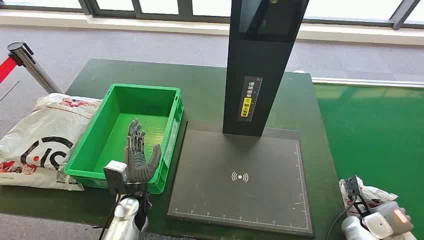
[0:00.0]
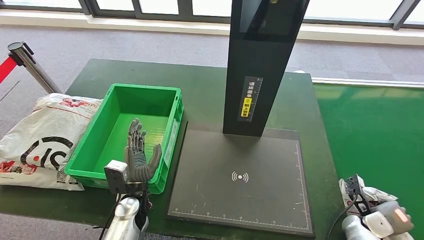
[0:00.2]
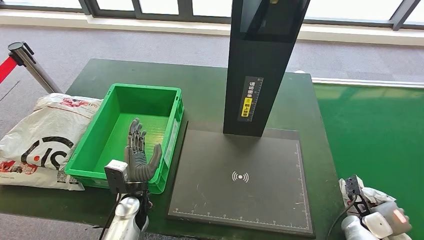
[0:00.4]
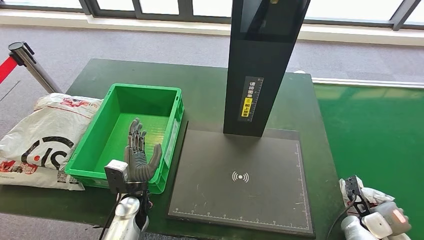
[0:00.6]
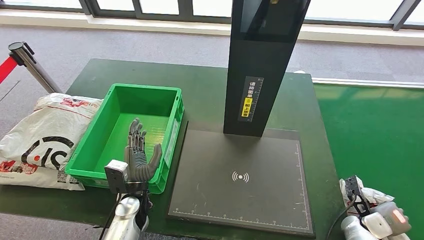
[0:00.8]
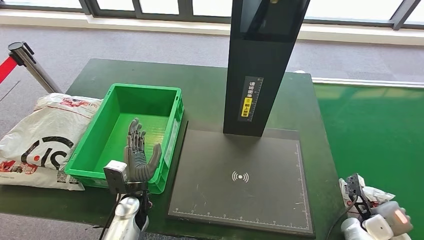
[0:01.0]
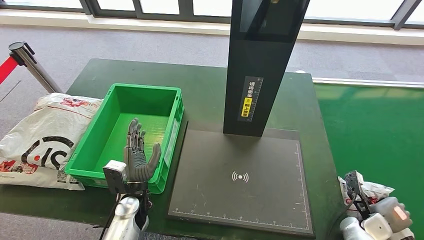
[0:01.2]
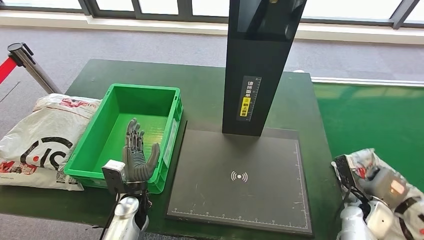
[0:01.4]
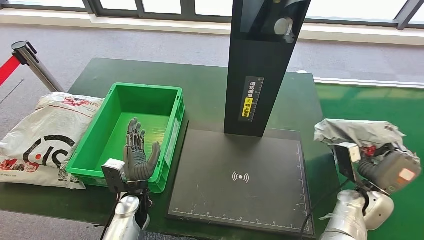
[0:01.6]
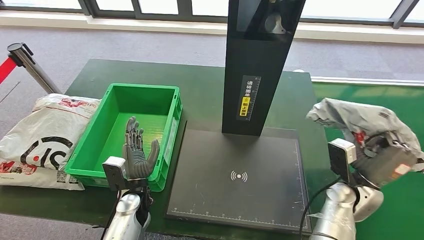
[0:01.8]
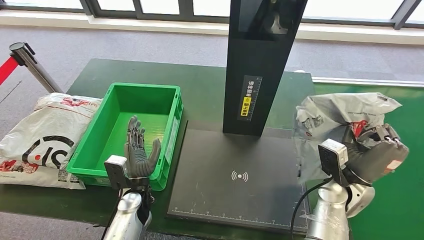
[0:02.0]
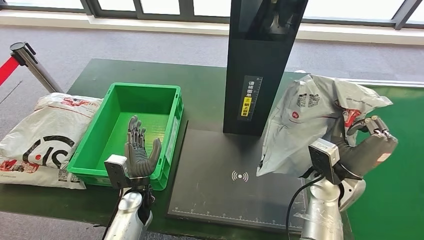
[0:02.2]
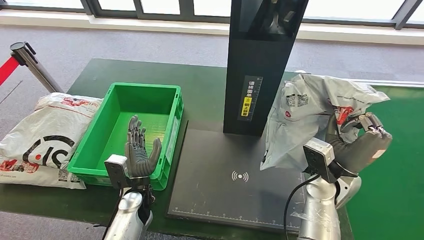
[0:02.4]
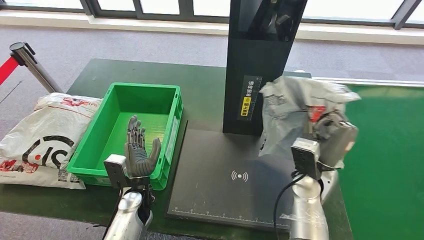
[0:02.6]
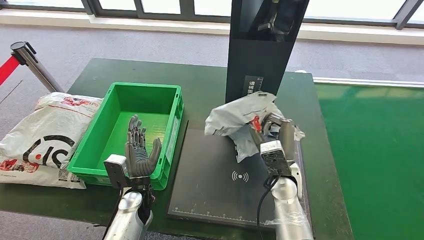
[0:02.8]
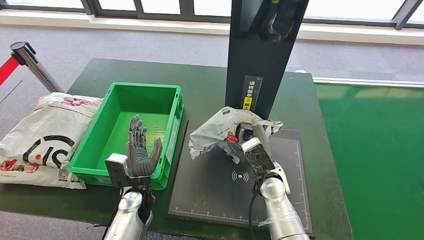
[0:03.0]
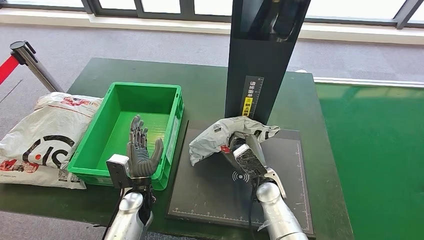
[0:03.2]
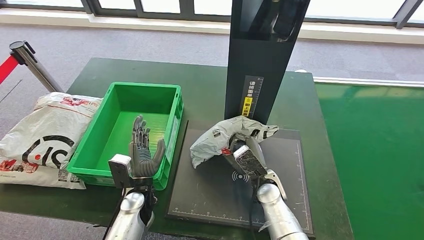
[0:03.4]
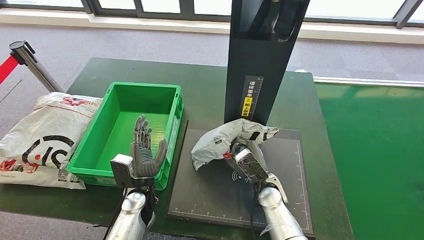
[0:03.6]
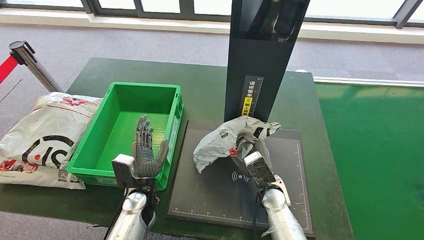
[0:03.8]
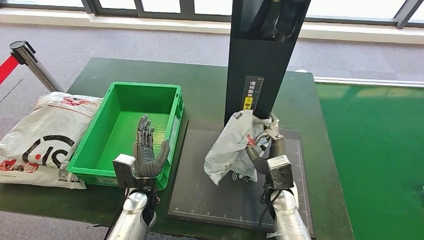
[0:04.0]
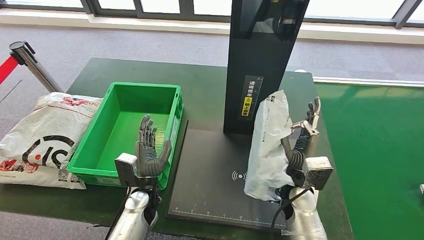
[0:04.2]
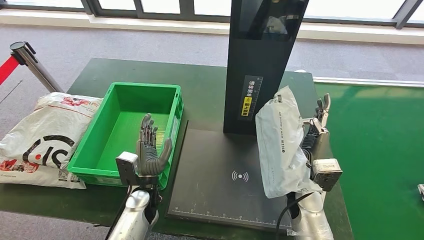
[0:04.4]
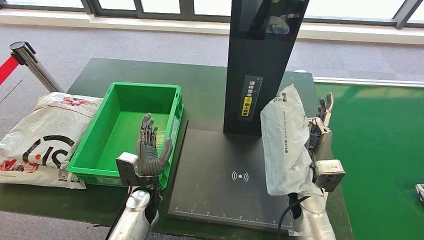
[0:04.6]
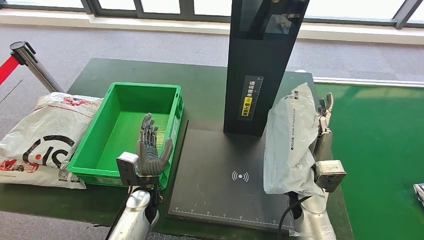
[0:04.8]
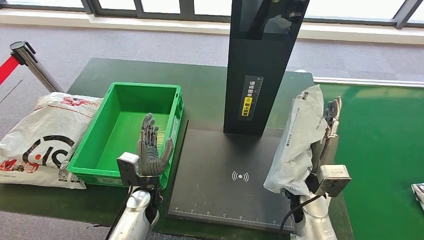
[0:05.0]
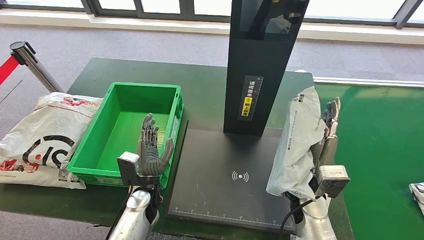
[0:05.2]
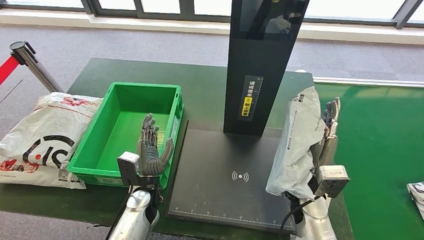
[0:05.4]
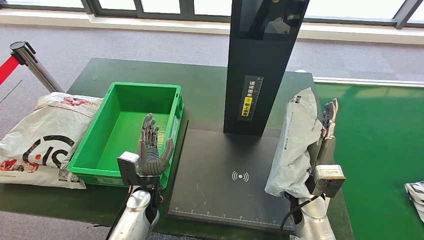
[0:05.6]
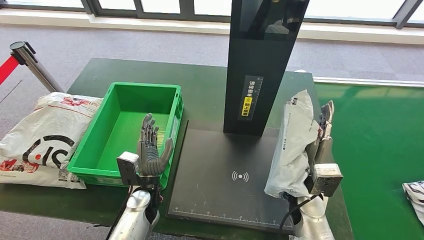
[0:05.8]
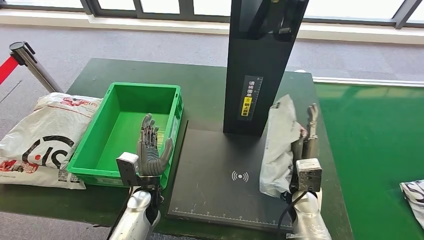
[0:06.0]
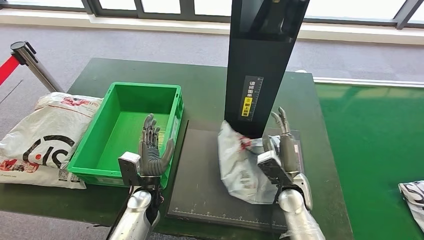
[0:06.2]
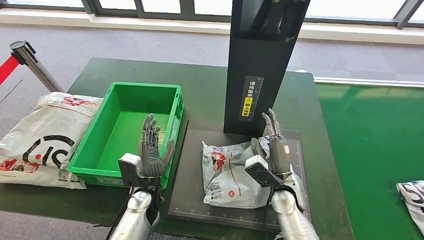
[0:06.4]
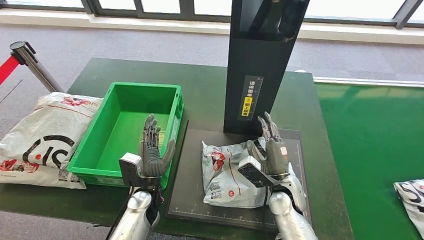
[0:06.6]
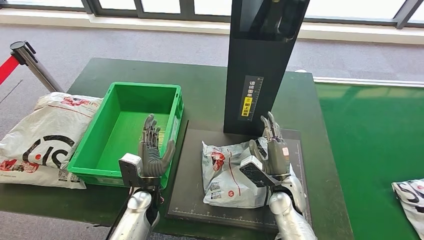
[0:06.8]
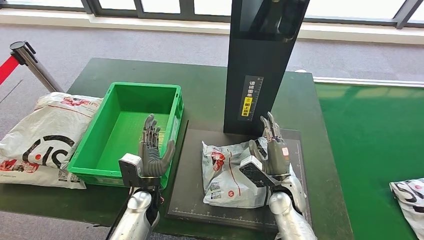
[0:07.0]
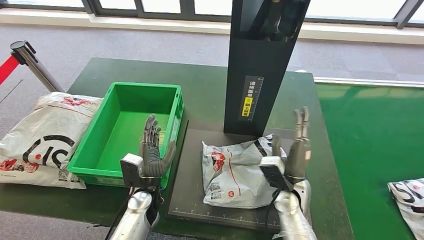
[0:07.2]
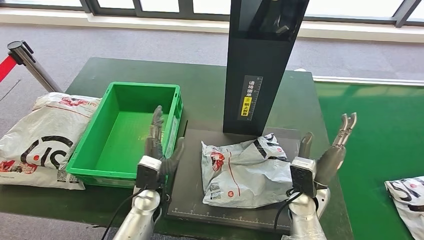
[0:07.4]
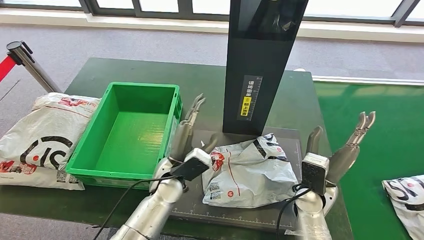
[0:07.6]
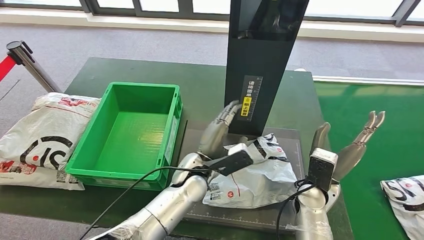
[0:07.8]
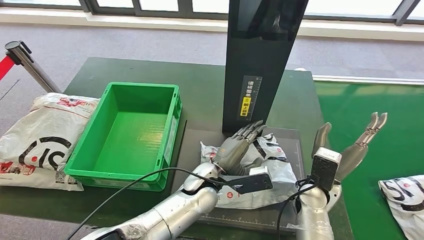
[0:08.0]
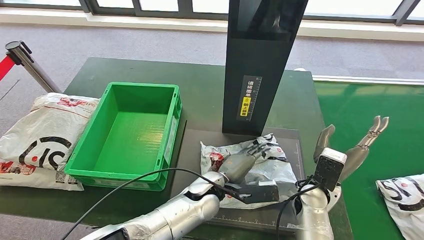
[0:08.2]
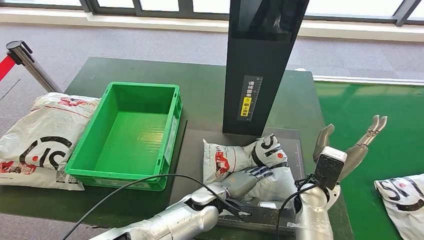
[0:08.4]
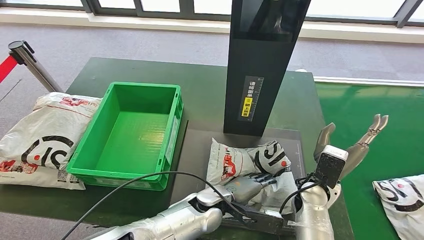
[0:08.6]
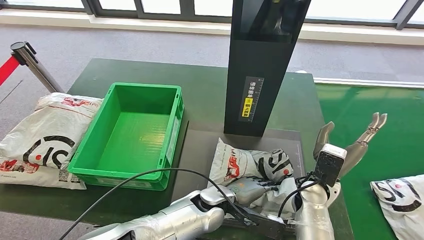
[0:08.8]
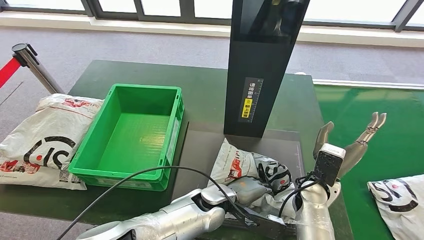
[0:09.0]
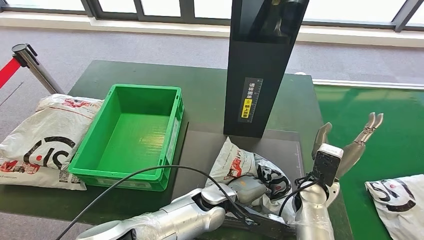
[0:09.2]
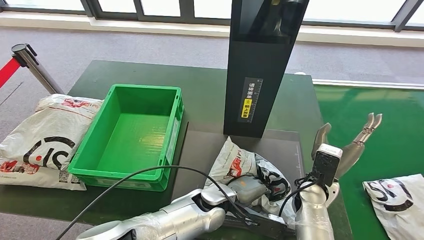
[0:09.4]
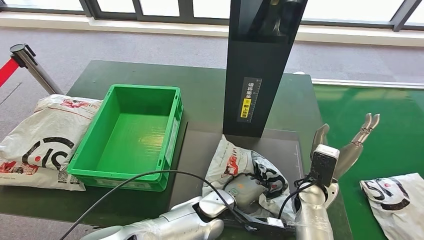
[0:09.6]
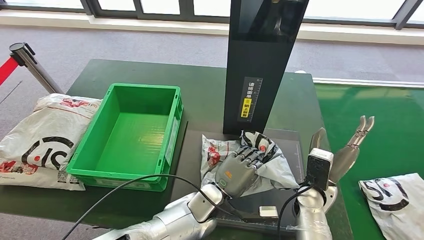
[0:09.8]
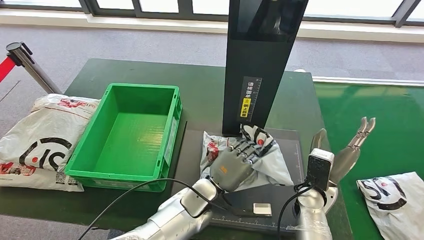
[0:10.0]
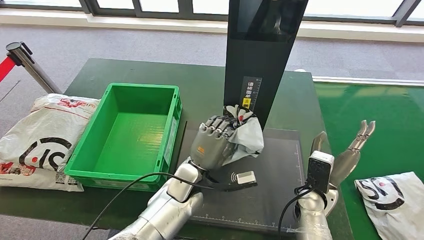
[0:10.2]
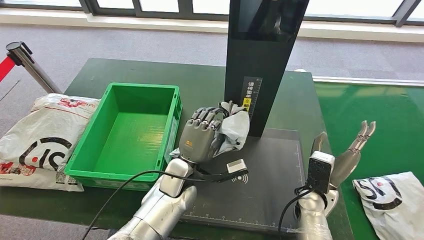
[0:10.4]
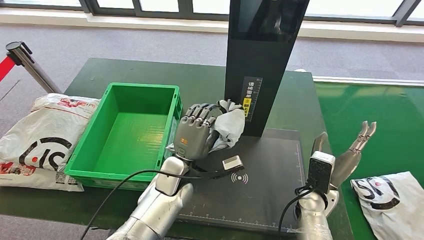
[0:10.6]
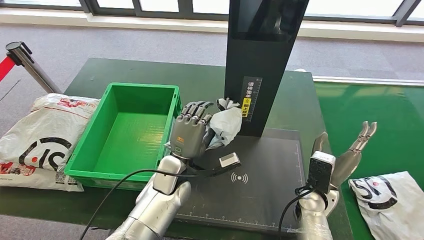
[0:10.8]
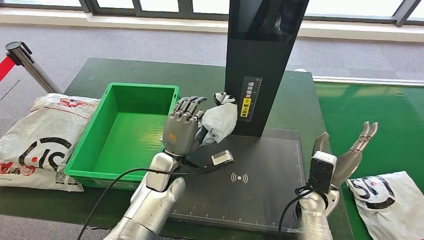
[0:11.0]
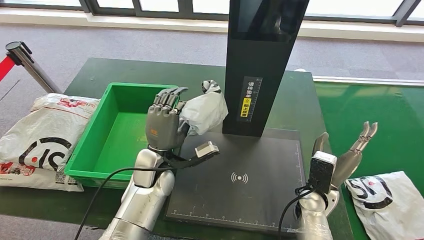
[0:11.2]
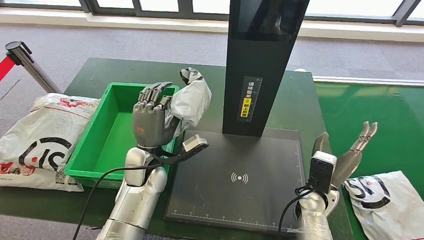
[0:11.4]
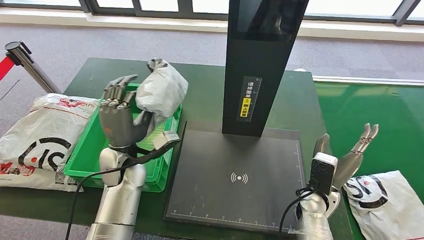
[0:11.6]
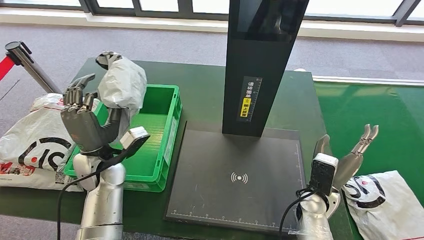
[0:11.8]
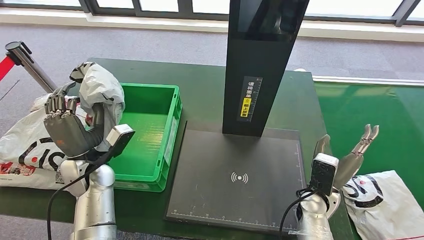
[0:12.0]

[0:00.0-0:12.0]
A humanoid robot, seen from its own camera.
Step, 0:00.0 to 0:01.6: Take the parcel off the conveyor belt.
Step, 0:02.2 to 0:06.6: Place the parcel onto the inbound machine.
Step, 0:07.8 to 0:09.8: Pick up the parcel from the inbound machine.
0:03.0 to 0:04.4: The right hand travels to the right by roughly 5 cm.
0:04.4 to 0:06.0: The hands move only a little.

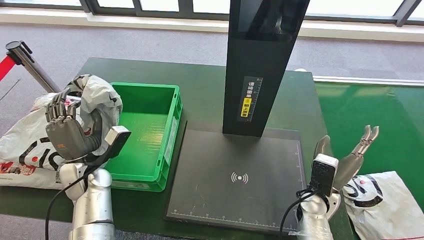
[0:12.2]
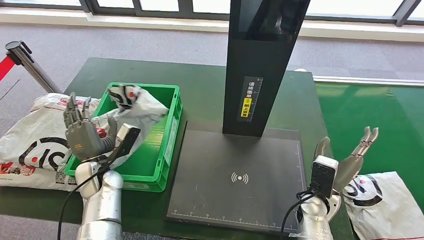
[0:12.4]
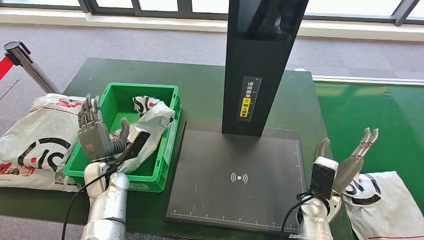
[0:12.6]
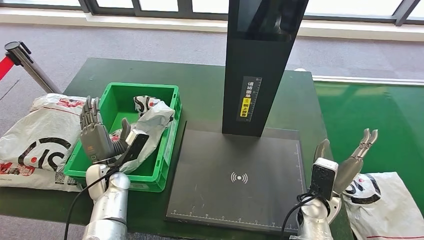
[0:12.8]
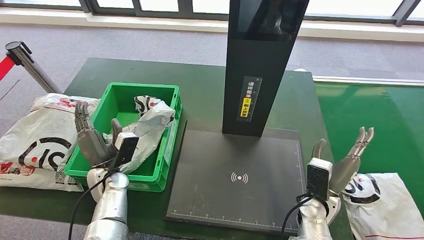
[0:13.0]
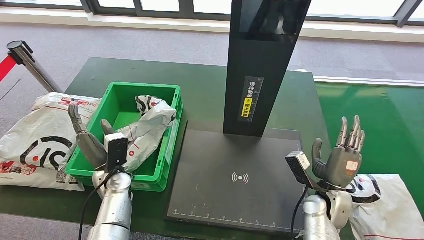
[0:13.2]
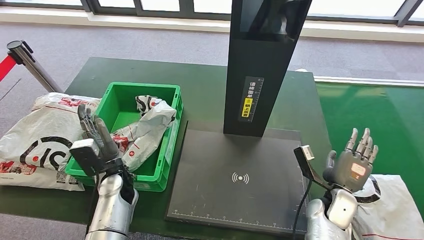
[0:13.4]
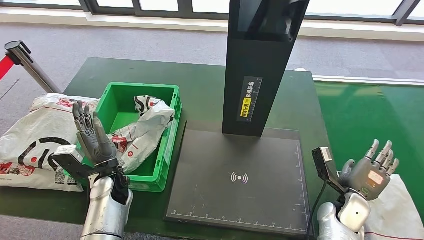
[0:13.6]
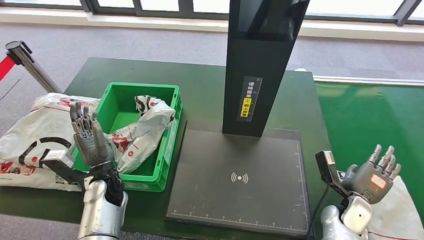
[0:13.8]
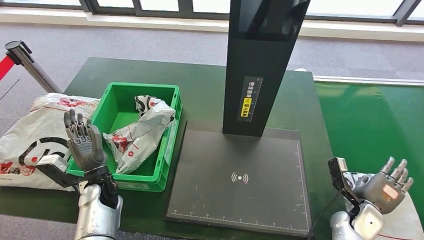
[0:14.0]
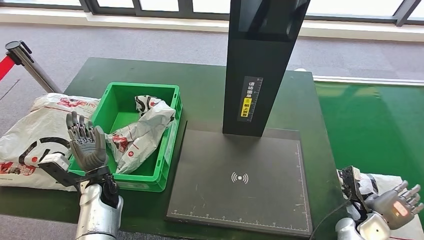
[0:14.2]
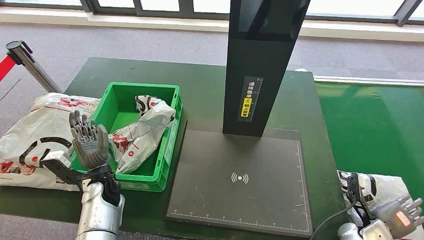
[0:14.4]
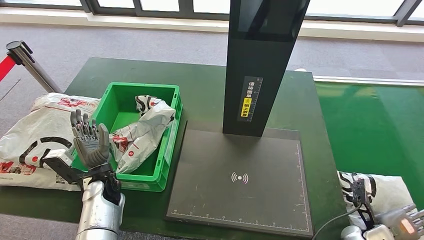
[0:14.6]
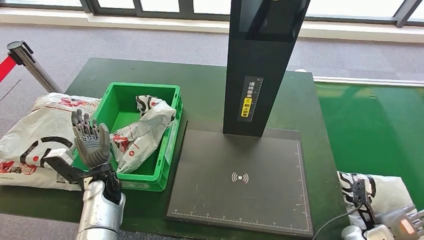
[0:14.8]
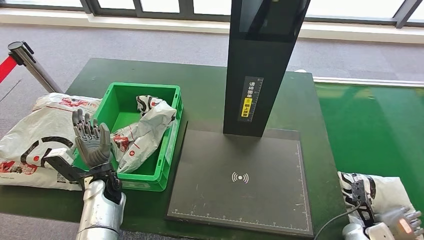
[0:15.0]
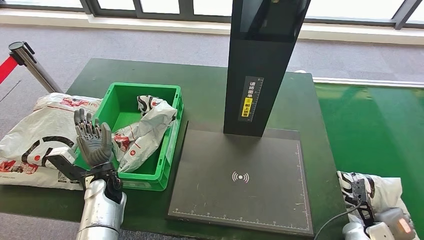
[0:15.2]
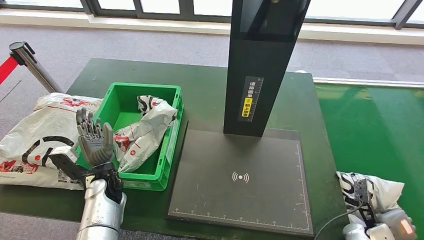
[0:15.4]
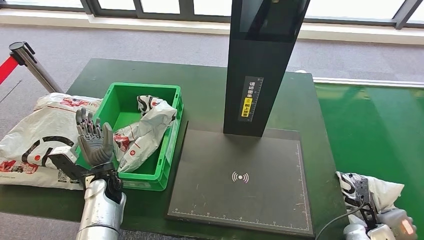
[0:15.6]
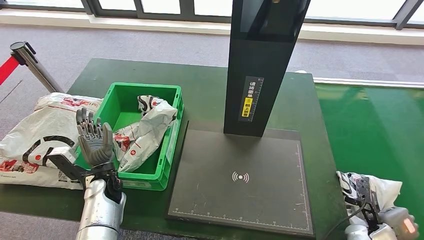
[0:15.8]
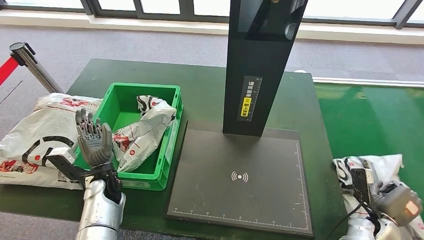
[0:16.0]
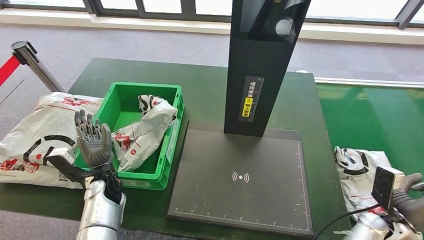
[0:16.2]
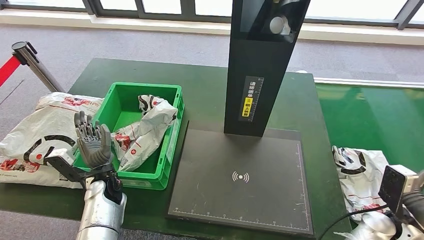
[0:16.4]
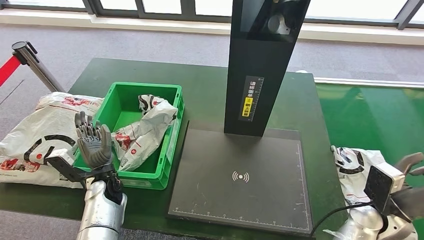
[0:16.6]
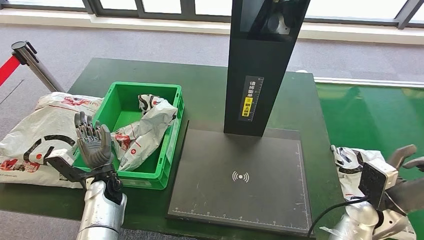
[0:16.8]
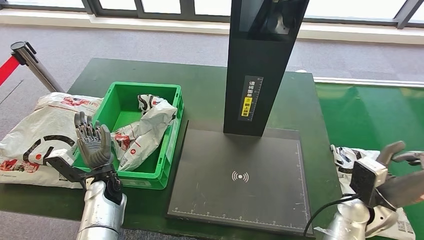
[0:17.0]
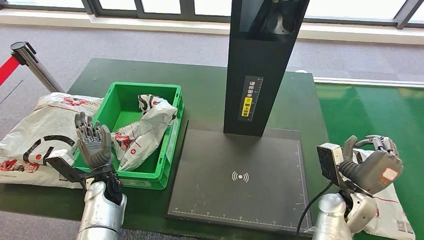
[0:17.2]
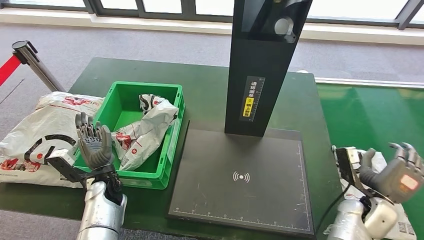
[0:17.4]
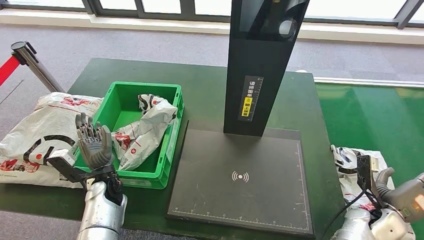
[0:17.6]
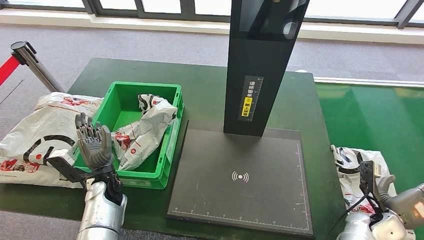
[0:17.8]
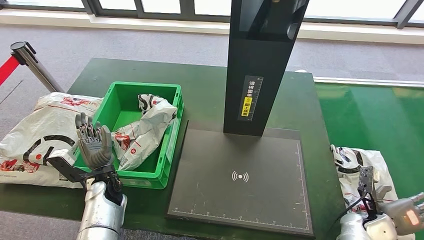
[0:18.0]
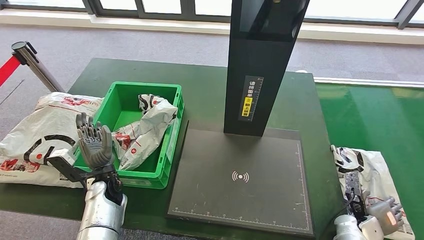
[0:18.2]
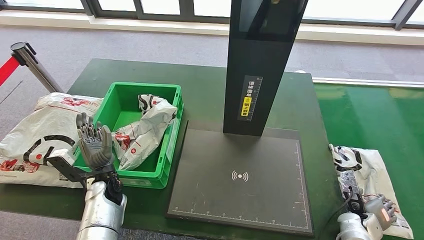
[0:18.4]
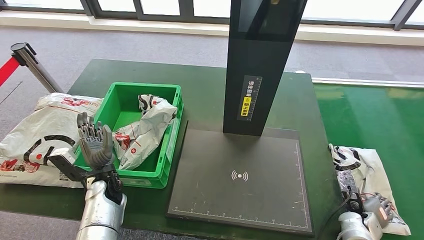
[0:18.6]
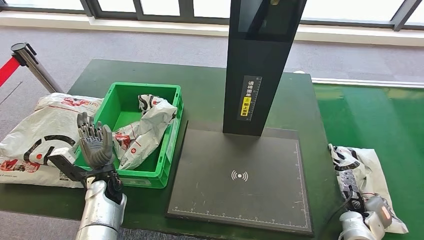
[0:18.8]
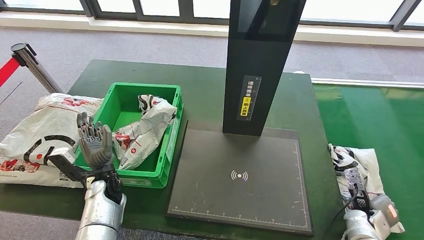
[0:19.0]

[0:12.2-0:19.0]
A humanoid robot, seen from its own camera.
0:12.2 to 0:13.6: The right hand shifts about 10 cm to the right. The left hand shifts roughly 5 cm to the right.
0:15.0 to 0:16.2: The right hand is displaced upward by roughly 10 cm.
0:16.2 to 0:17.6: The right hand reaches about 10 cm to the left, then returns.
0:17.6 to 0:19.0: The right hand moves downward, some 5 cm.
